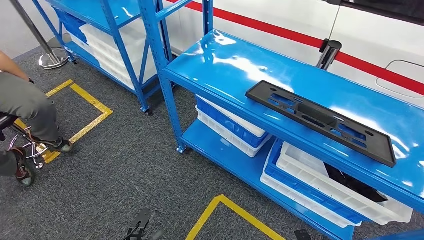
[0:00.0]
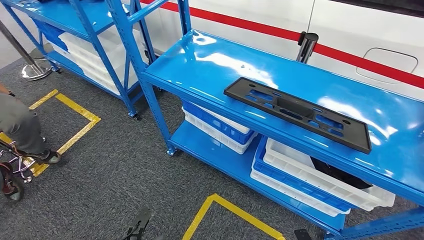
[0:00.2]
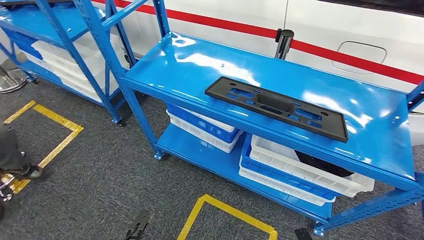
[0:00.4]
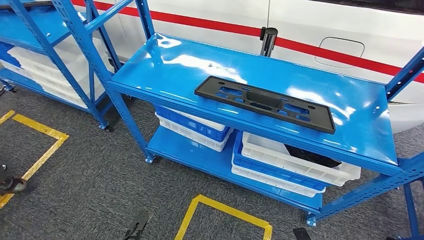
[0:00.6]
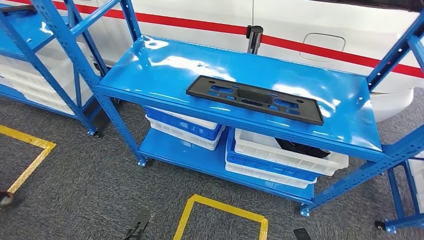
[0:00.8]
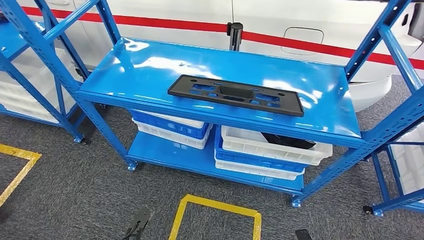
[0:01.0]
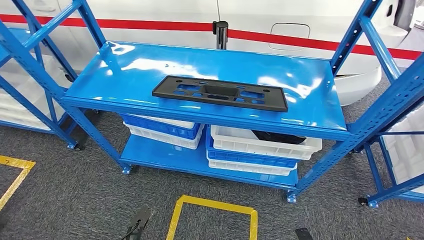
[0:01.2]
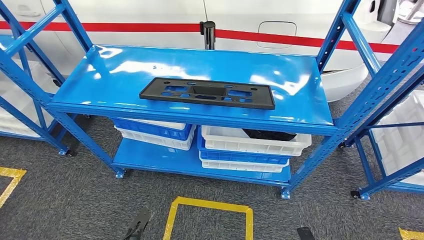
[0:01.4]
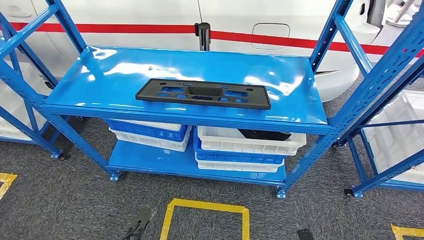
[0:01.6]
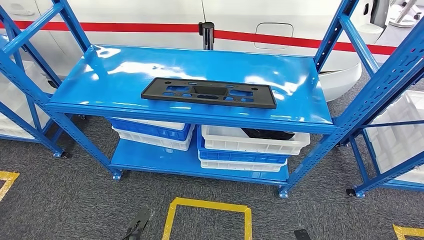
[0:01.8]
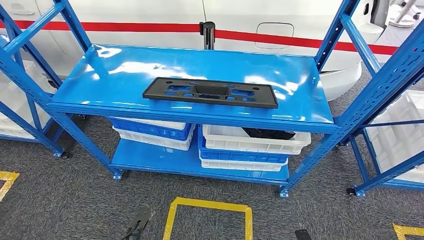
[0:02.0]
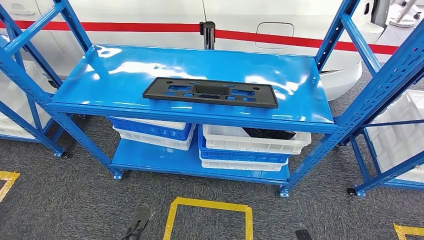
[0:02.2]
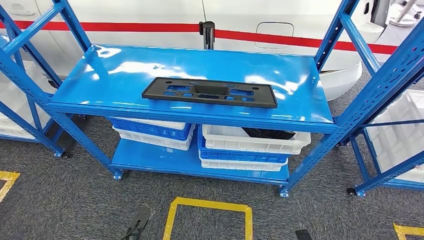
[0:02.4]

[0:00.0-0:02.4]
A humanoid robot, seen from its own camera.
Step, 0:00.0 to 0:02.4: Move to the initial position of the shelf.
